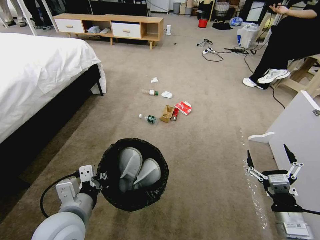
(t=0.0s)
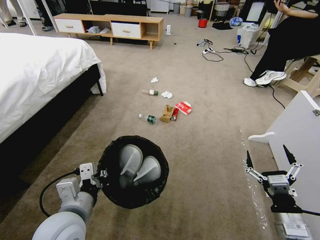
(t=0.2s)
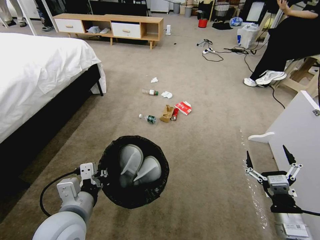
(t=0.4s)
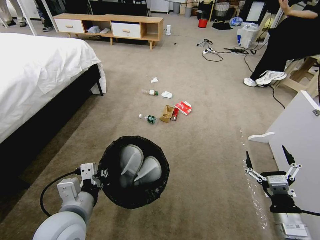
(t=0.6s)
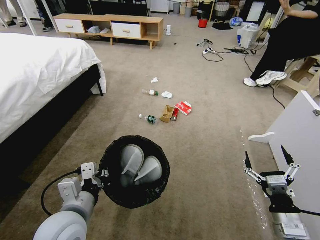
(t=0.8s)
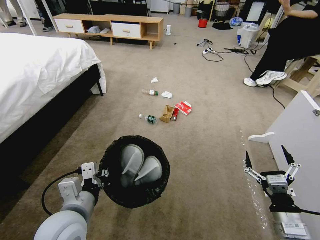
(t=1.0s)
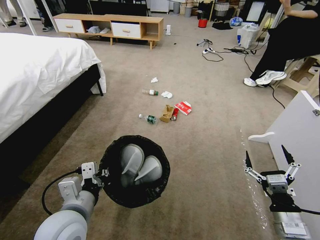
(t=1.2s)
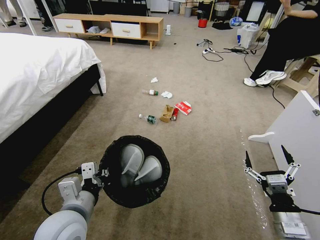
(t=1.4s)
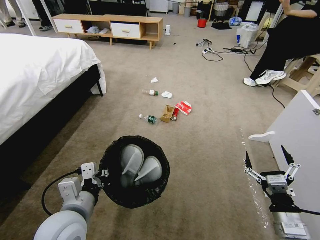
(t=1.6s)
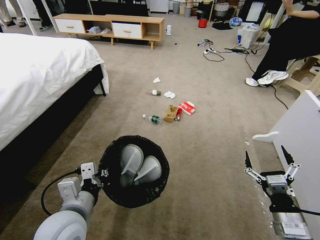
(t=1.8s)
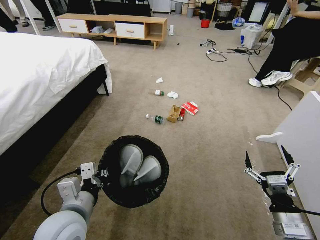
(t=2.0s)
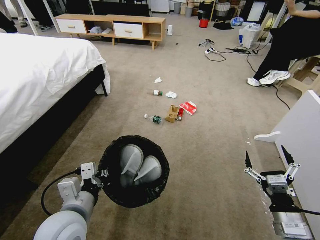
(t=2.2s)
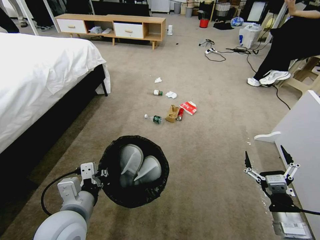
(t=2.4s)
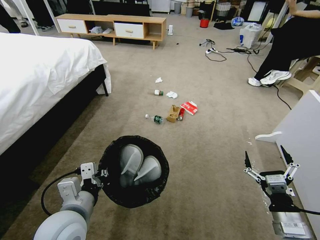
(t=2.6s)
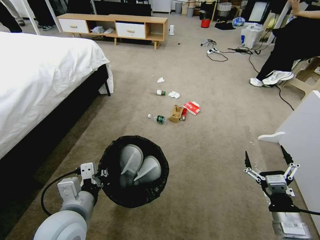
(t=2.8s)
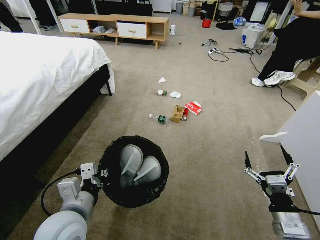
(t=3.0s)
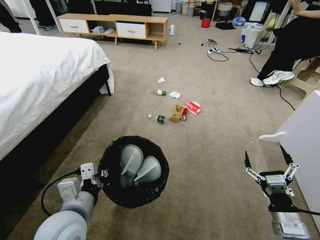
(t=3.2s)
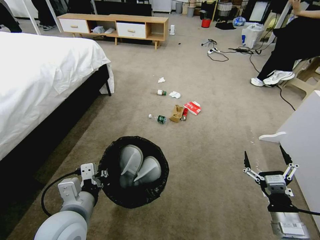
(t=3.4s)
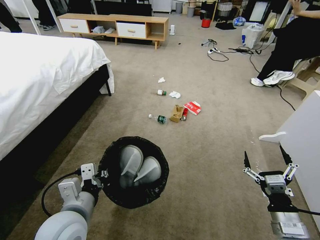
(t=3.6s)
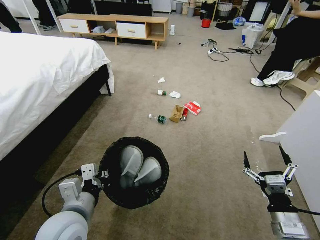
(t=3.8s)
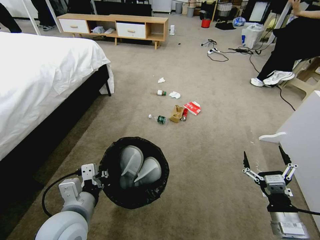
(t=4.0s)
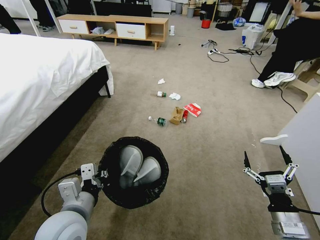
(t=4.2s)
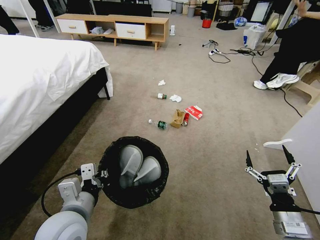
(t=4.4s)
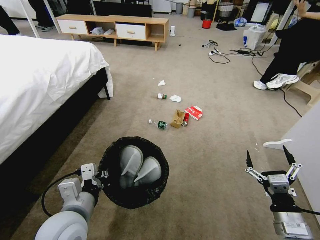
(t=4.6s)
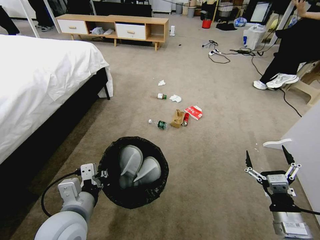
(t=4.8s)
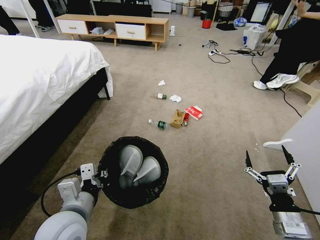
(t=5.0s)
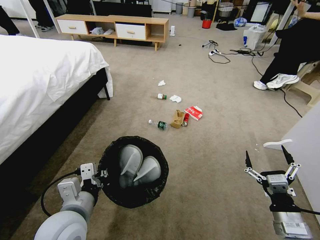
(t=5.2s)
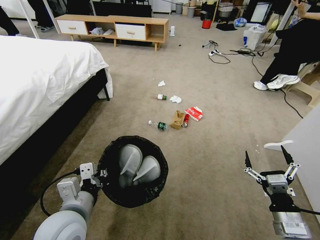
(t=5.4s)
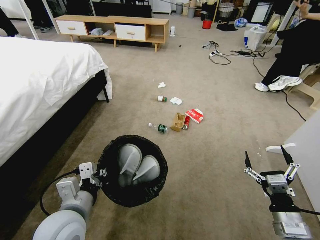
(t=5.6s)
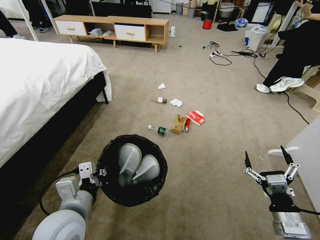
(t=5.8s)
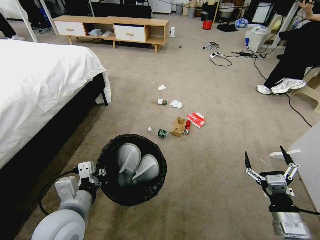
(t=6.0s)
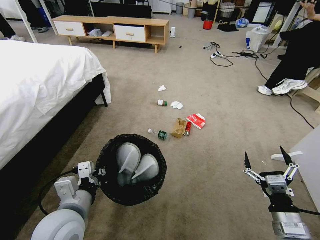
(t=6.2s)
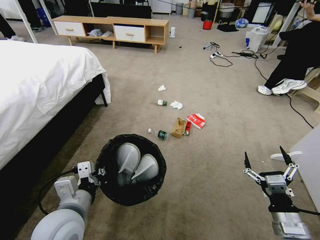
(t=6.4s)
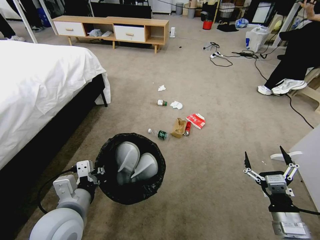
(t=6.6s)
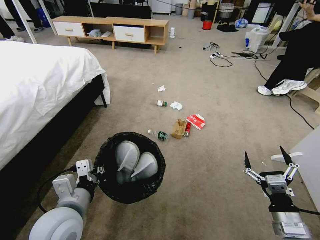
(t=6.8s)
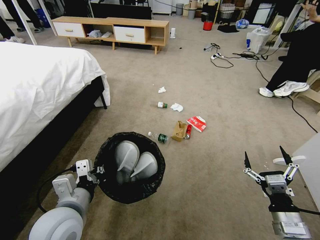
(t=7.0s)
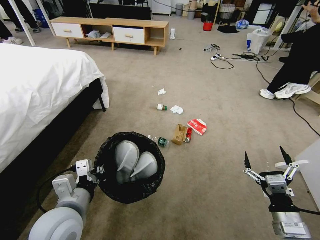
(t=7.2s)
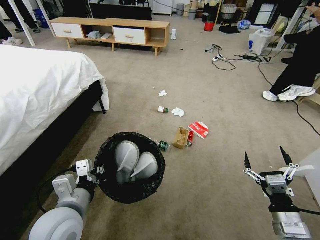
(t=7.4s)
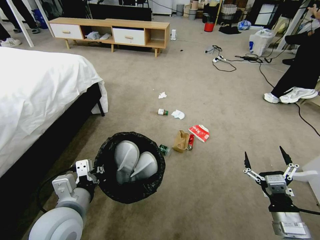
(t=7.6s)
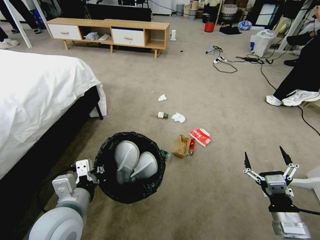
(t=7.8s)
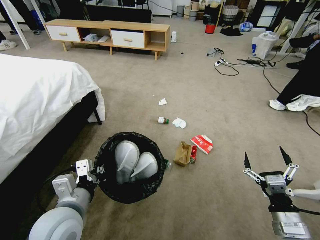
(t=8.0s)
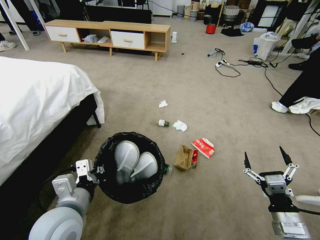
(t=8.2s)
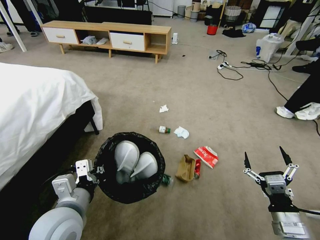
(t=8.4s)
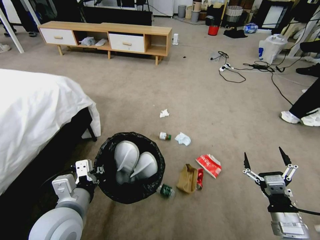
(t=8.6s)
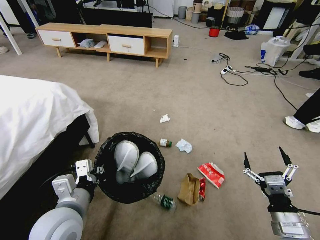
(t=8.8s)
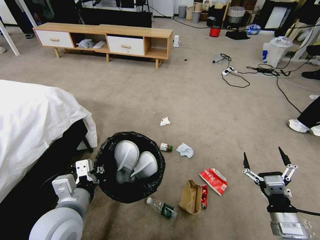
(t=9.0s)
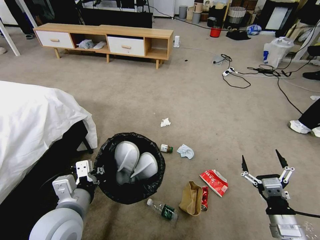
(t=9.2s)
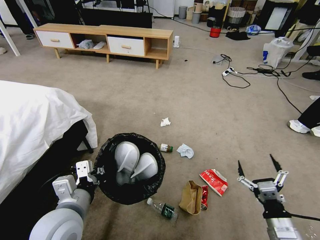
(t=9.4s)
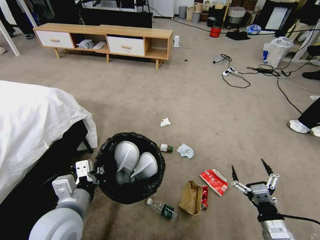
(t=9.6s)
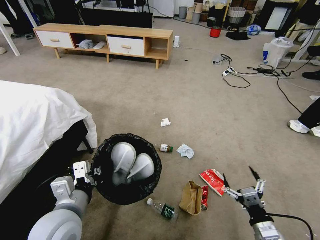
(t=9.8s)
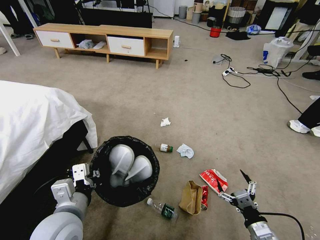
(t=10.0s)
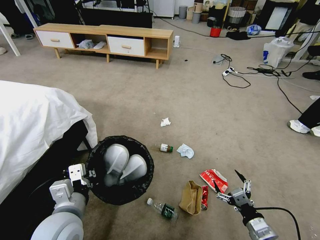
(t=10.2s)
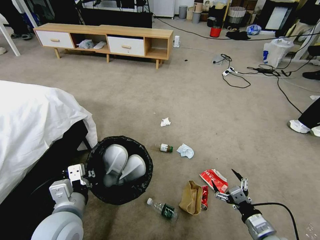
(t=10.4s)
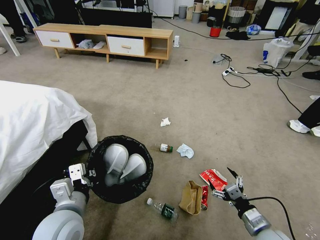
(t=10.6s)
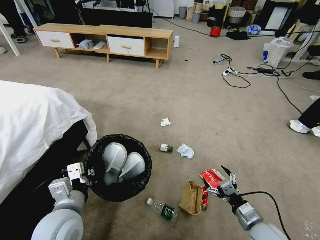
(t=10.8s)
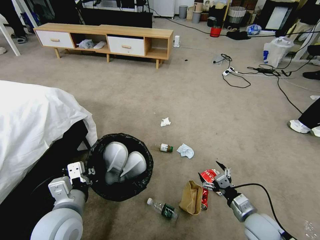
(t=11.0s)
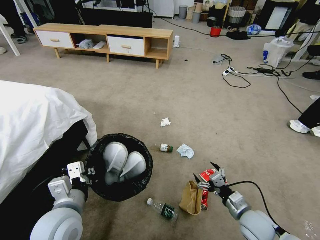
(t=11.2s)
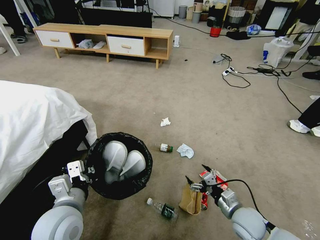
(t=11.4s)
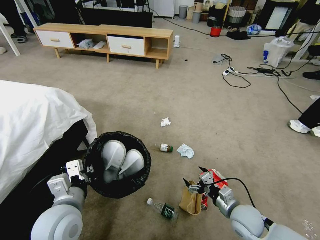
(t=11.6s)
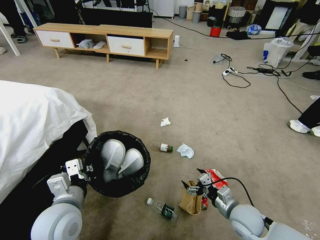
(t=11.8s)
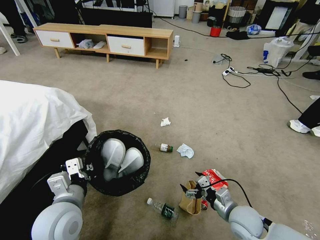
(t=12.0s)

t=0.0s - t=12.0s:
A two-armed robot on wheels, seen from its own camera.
Task of the whole recording: Pick up the trash bin, then pick up the garbage from the floor and place it into the trash bin.
t=3.0s - t=4.4s: Neither gripper changes place.
t=9.0s - t=10.4s: The right gripper shifts about 5 cm downward.
t=10.4s - t=12.0s: The right gripper shifts about 10 cm forward and to the left.

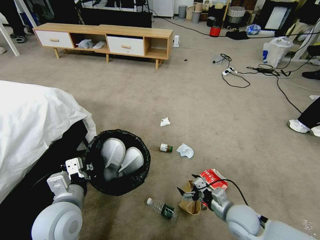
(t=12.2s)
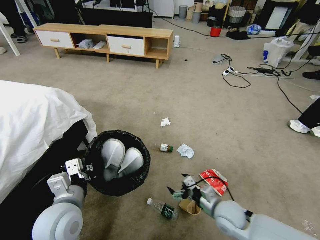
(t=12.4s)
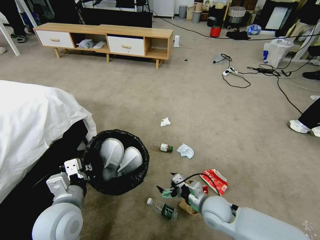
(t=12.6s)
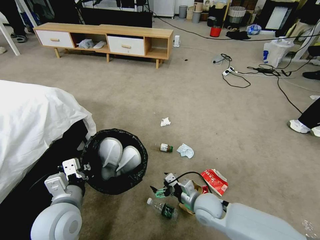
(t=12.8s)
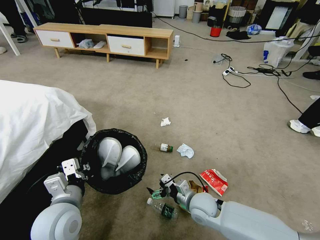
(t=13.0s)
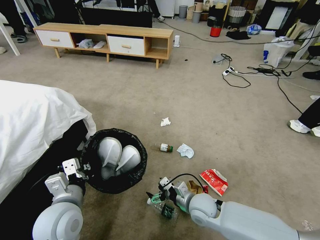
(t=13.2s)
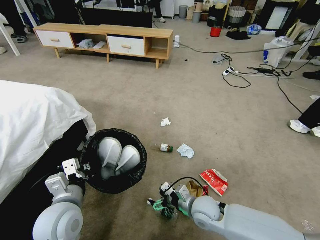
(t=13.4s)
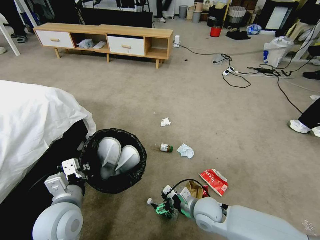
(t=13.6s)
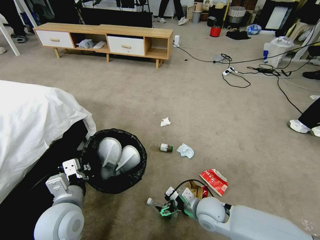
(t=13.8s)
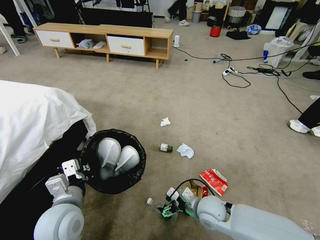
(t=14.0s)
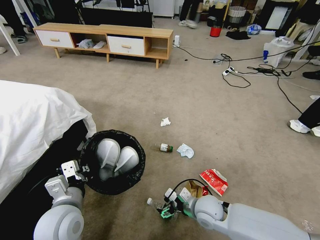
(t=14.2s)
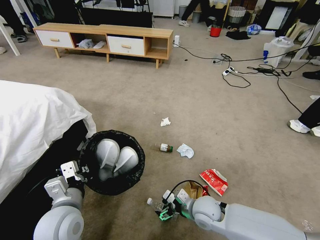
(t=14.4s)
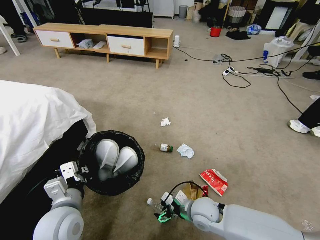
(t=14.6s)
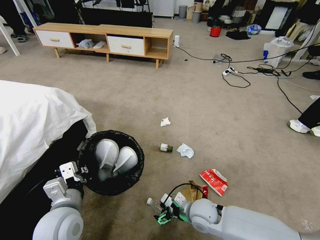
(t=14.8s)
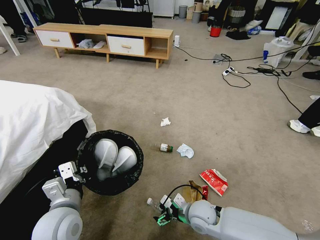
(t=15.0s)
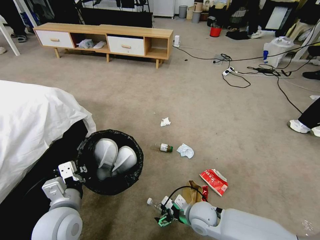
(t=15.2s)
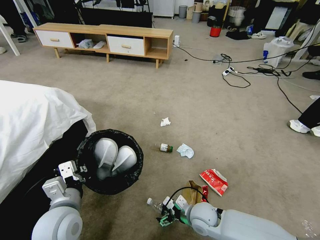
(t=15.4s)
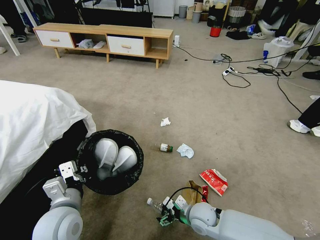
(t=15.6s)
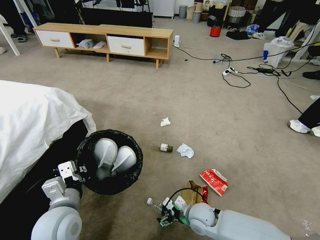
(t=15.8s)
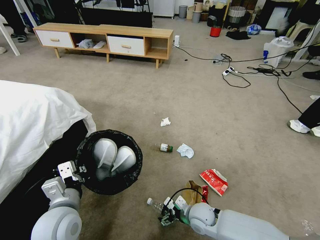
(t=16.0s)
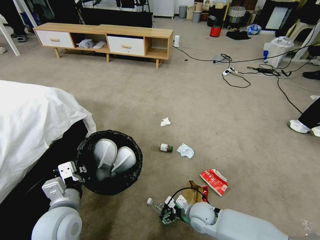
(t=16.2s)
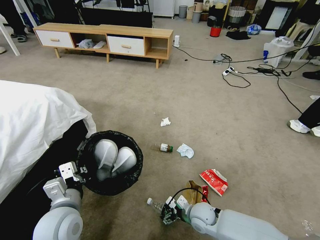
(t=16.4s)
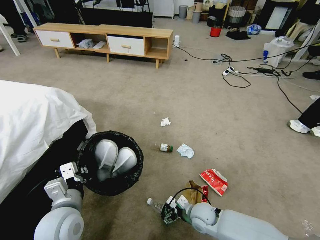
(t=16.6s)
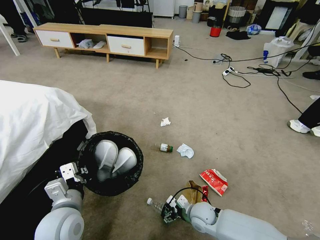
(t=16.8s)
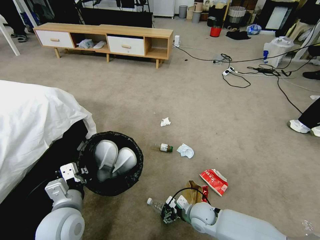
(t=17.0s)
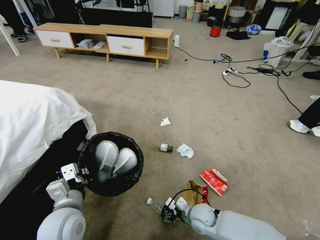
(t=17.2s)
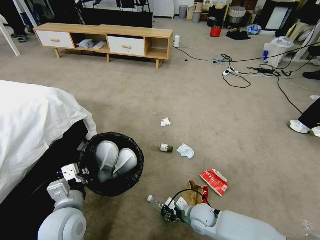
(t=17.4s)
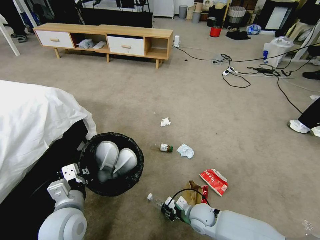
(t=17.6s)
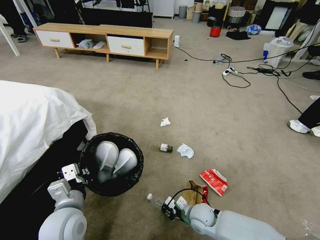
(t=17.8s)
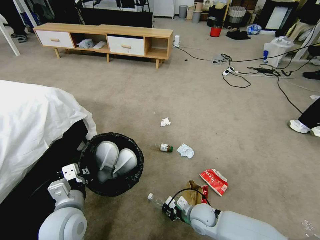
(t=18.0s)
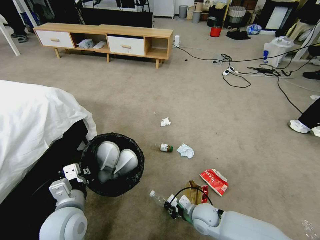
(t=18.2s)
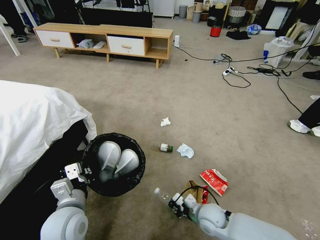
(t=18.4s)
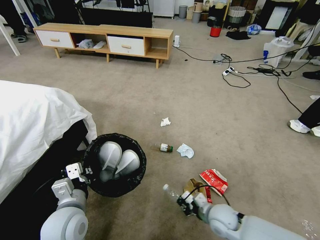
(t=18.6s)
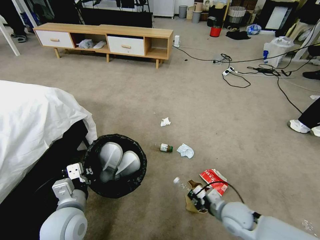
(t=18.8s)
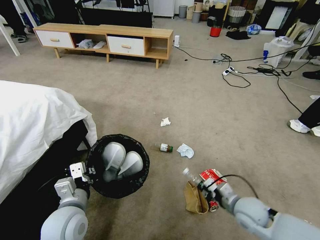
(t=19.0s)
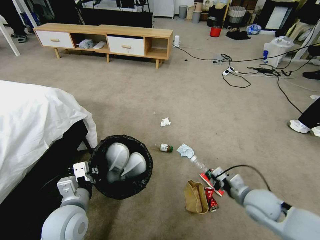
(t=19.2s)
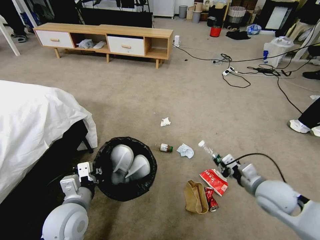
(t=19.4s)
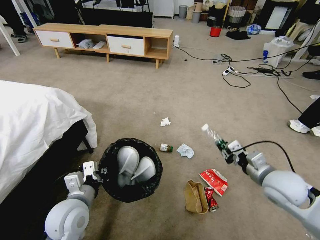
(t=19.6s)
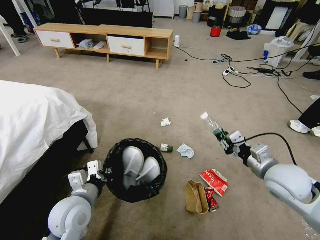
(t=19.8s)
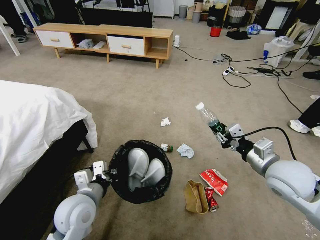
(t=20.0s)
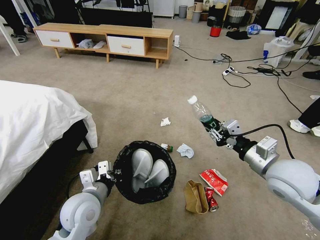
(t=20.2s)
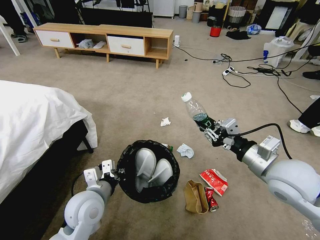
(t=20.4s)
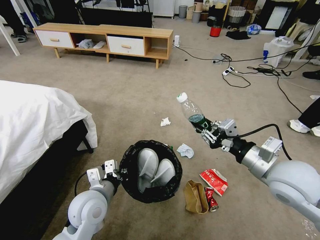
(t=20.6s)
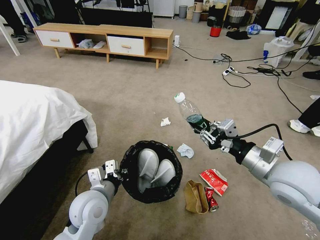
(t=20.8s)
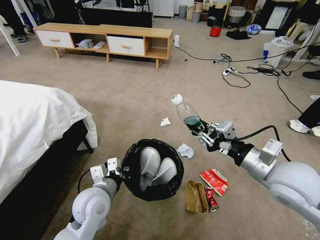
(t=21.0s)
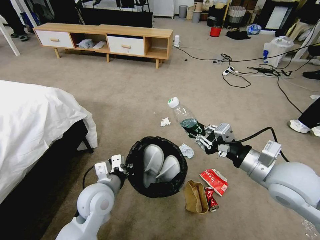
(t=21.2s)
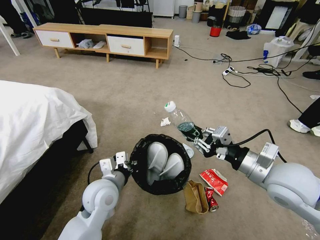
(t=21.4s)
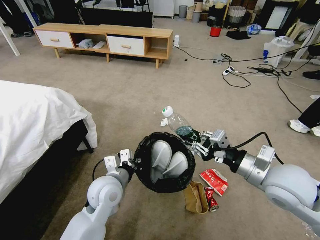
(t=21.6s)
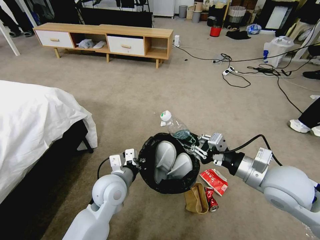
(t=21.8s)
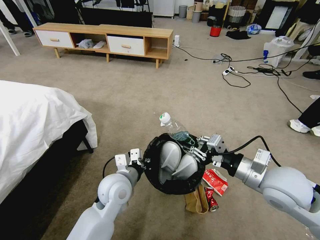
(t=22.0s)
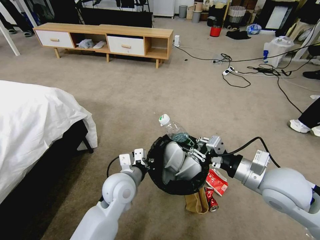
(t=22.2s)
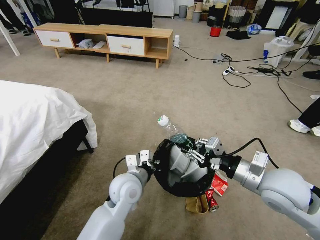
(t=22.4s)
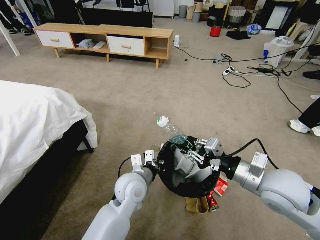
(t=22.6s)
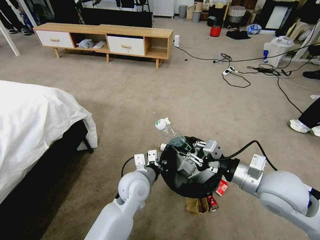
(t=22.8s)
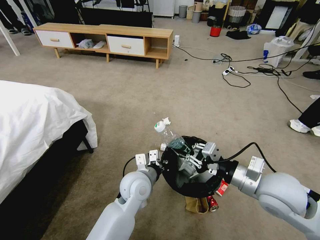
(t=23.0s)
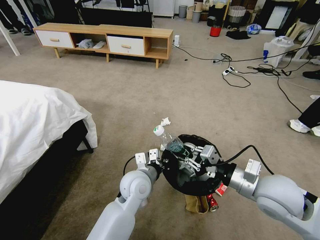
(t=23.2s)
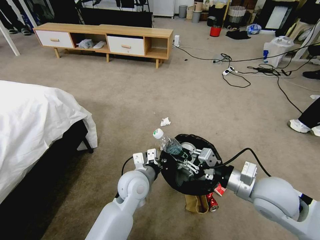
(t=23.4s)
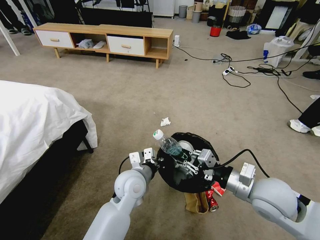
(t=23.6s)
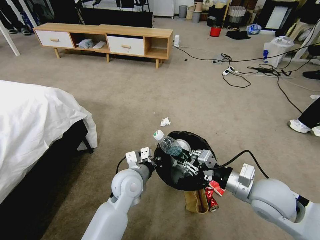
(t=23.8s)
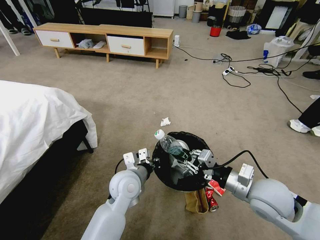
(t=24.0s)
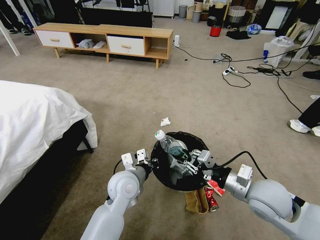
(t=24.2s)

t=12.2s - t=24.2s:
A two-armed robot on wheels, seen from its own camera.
Task of the whole recording: Pick up the trash bin, then pick up the garbage from the floor and place it into the trash bin.
t=12.2s - t=13.8s: The right gripper moves to the left, about 10 cm.
t=13.8s - t=15.2s: The grippers move only a little.
t=15.2s - t=16.6s: The right gripper shifts by some 5 cm.
t=16.6s - t=18.2s: The right gripper closes its fingers.
t=18.2s - t=19.8s: The right gripper moves upward and to the right, approximately 30 cm.
t=19.8s - t=21.2s: The right gripper shifts some 5 cm upward; the left gripper moves to the right, some 5 cm.
t=21.2s - t=22.6s: The left gripper heads to the right, covering some 10 cm.
t=22.6s - t=24.2s: The right gripper shifts about 5 cm downward.
